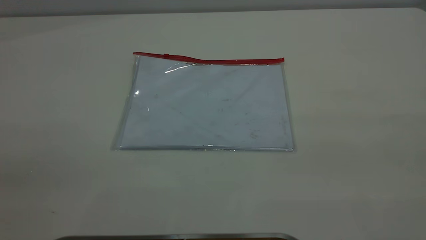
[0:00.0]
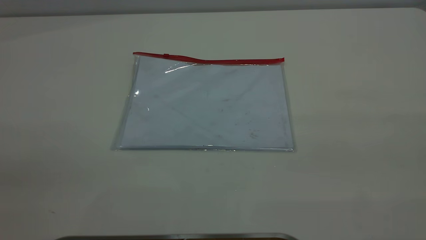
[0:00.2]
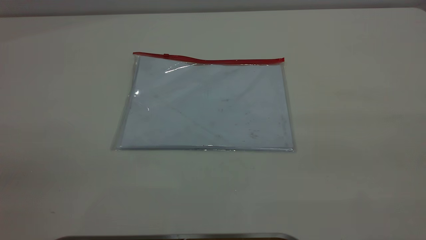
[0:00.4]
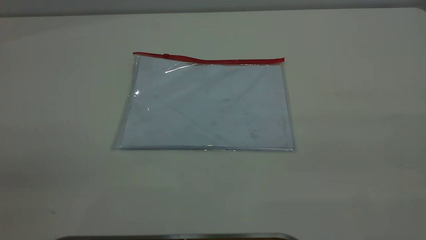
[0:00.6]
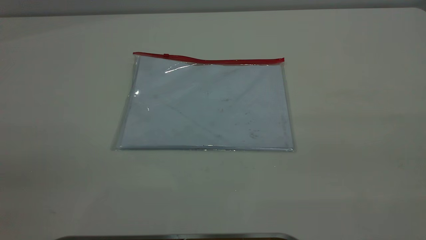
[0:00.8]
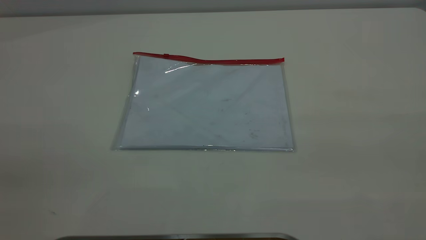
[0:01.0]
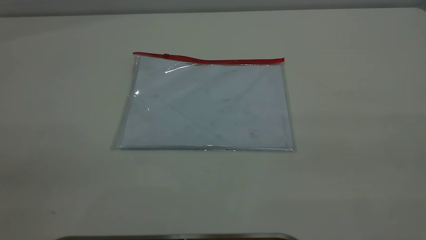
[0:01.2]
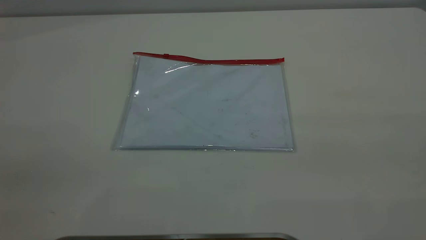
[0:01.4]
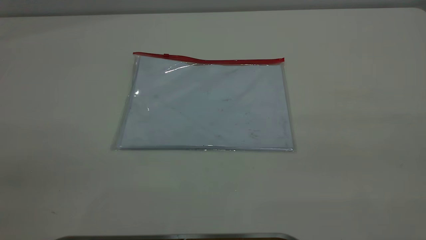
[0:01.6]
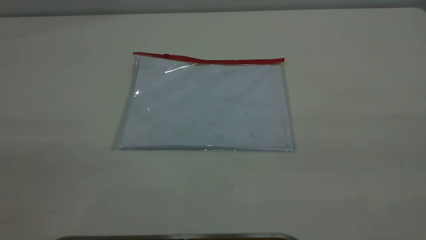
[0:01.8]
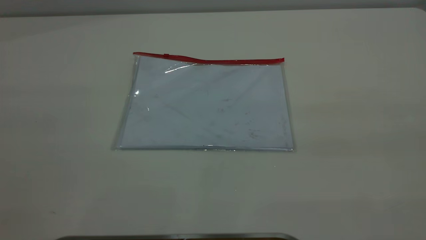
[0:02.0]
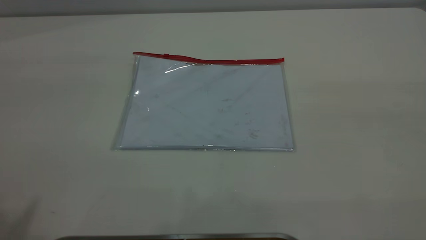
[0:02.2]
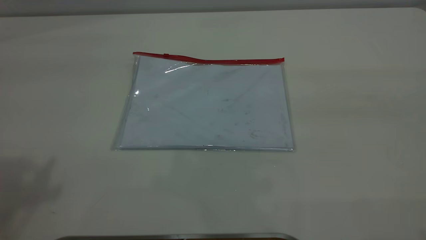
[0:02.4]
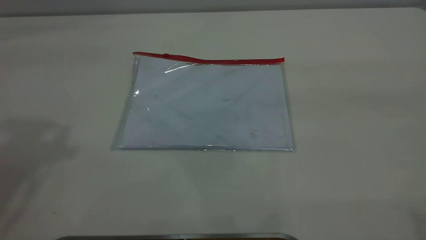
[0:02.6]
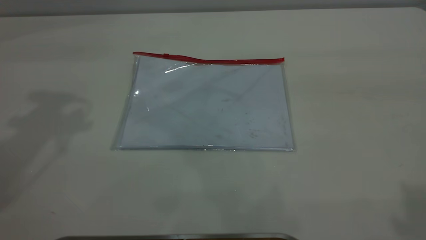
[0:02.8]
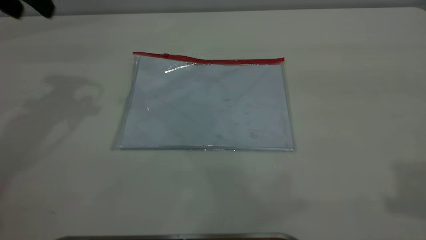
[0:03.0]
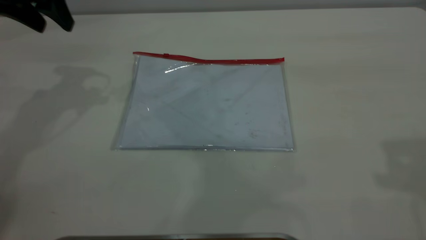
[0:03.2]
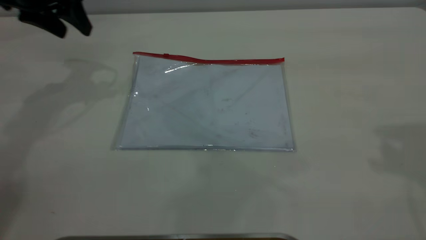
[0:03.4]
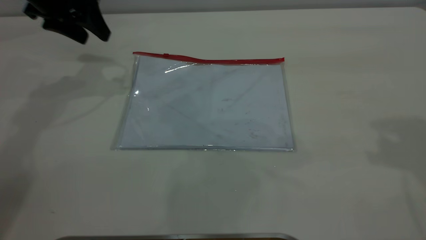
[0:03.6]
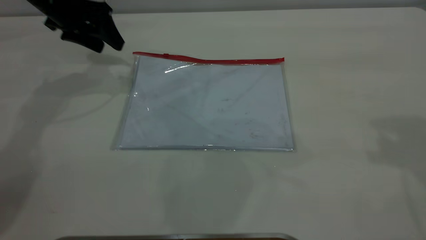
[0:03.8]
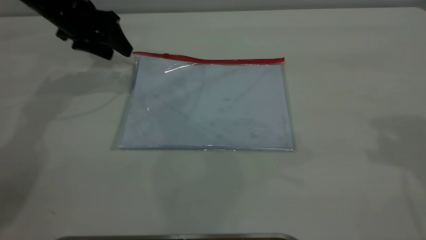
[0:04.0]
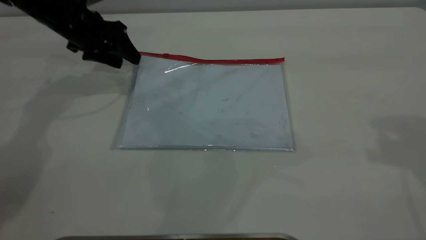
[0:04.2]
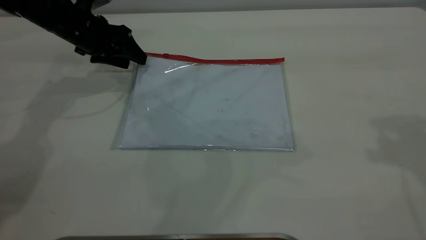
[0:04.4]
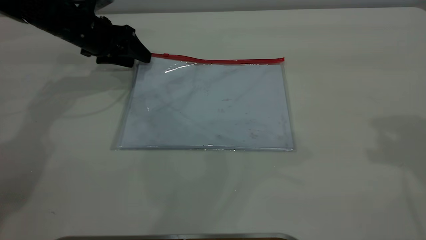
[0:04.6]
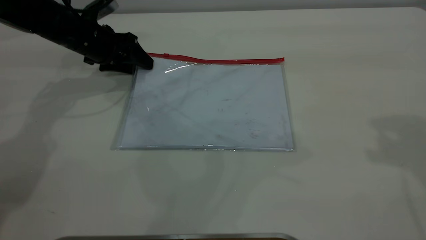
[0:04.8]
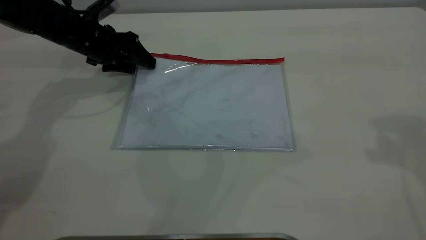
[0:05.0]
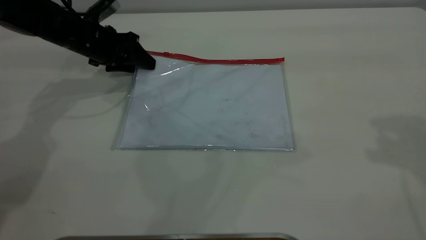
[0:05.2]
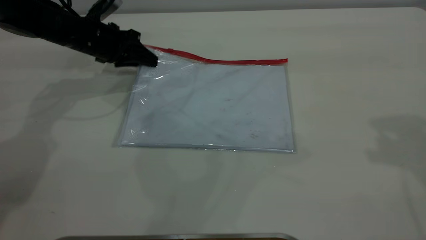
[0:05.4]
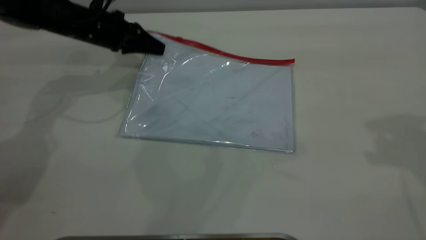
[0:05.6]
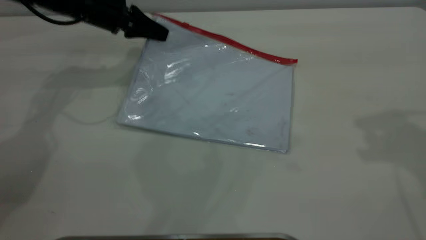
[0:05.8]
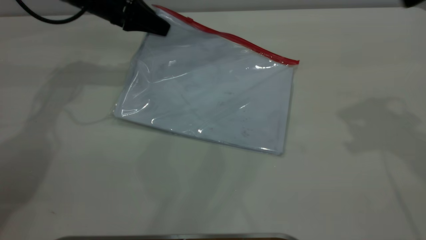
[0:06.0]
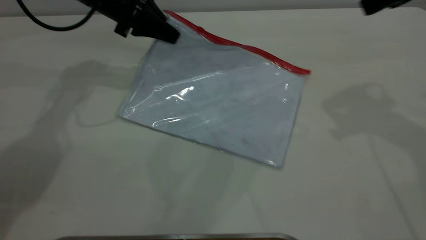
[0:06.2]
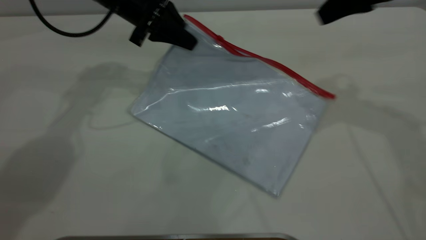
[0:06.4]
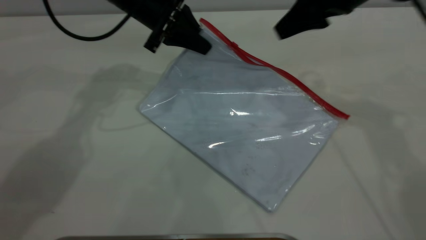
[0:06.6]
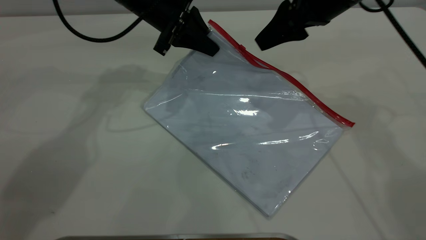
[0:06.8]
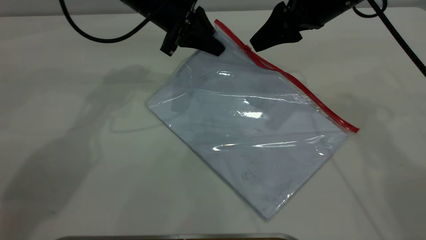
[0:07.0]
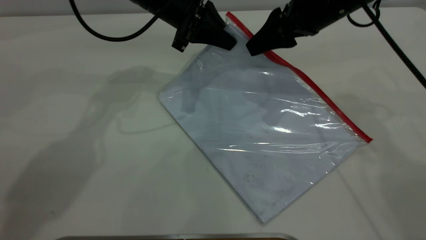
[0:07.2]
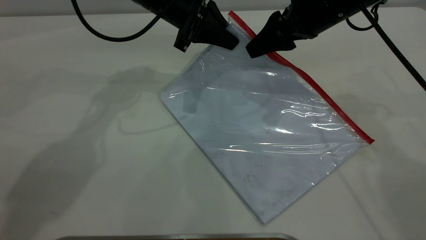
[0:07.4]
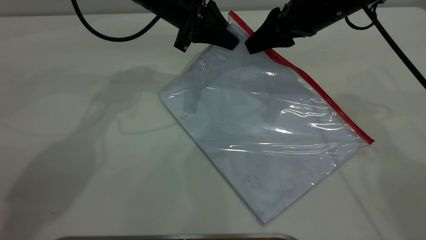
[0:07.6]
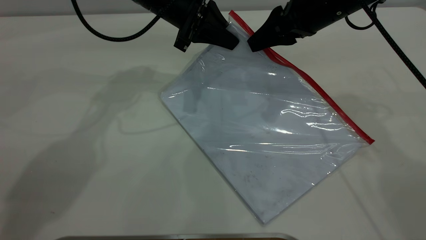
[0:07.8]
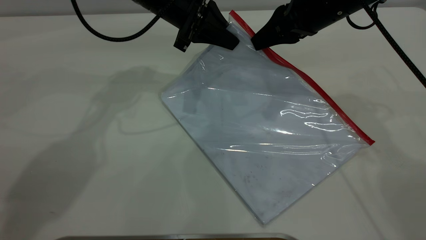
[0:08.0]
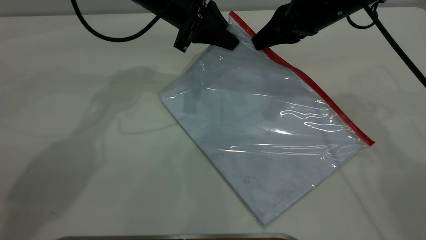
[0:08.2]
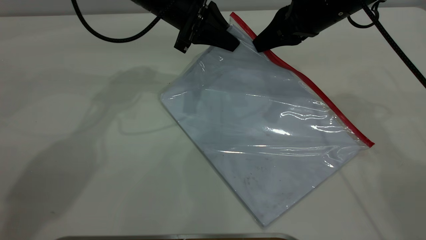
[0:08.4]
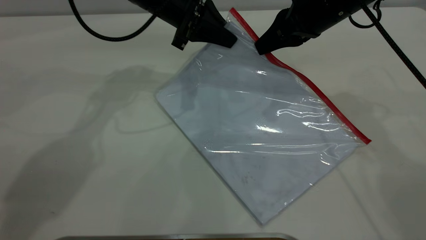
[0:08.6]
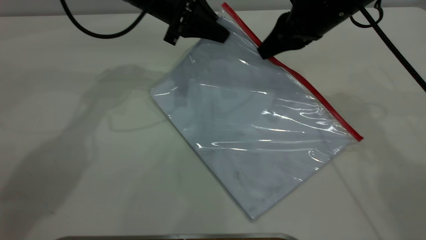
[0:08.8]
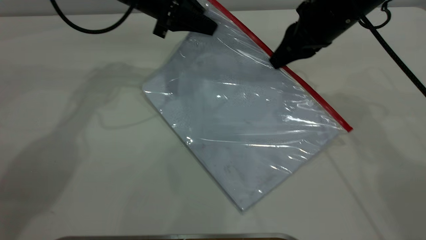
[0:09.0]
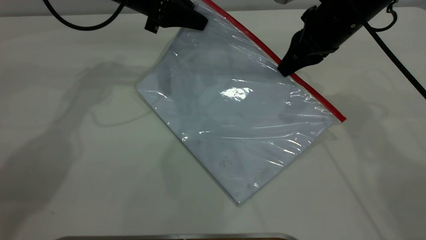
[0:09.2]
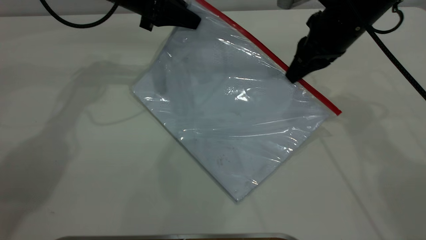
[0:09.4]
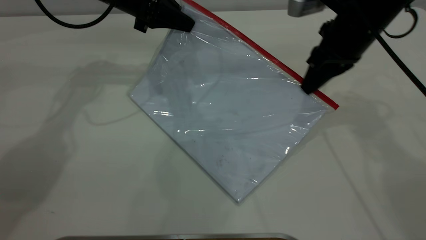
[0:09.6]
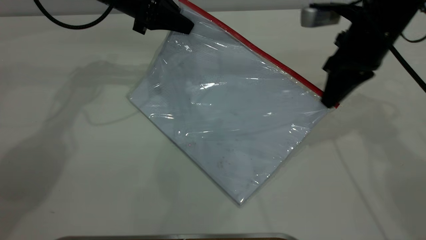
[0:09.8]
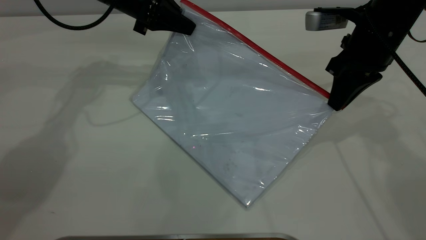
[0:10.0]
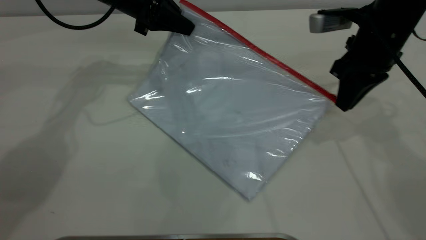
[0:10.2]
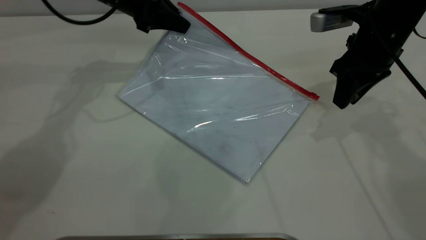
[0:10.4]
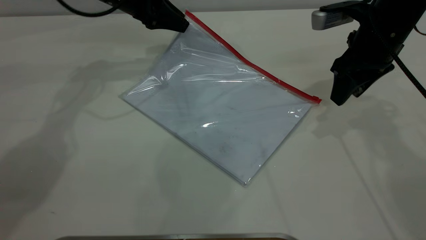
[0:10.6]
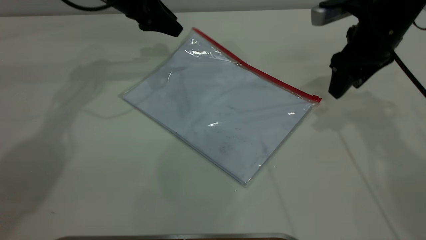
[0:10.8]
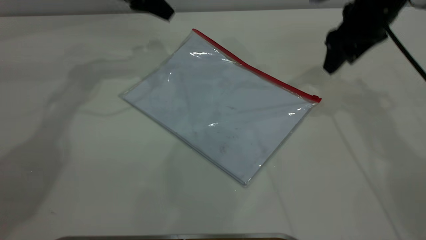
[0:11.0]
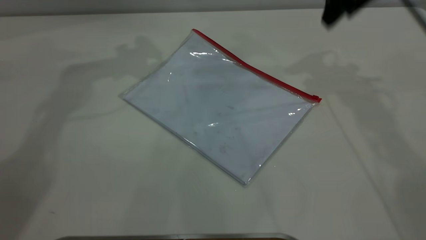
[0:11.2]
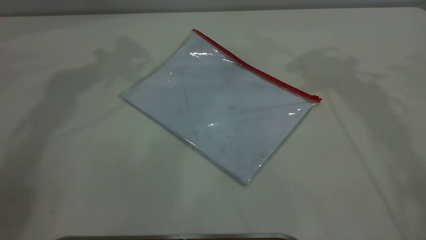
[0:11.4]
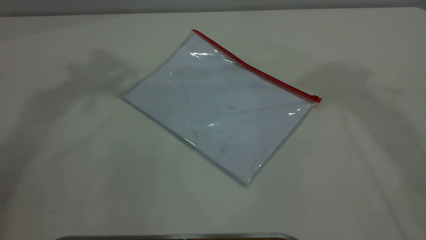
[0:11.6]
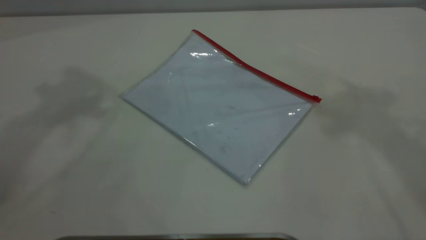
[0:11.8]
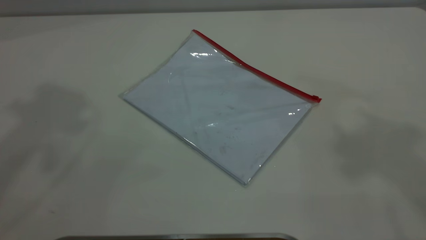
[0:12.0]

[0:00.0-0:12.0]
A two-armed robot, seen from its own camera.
Step, 0:00.0 to 0:05.6: Pick up the transparent plastic bag with the left gripper.
Step, 0:05.8 to 0:10.2: Pulling up the zipper on the transparent plastic bag with the right gripper to close it.
Step, 0:10.4 to 0:11.0: Place the transparent plastic bag.
0:00.0 to 0:01.6: The two grippers keep their place.
0:01.6 to 0:03.0: The left gripper goes about 40 cm forward.
0:03.0 to 0:04.4: The right gripper is displaced forward by approximately 10 cm. The left gripper shifts roughly 20 cm downward and forward.
0:04.4 to 0:06.0: The left gripper ends up some 5 cm from where it was, and closes its fingers. Meanwhile the right gripper is displaced forward and downward by some 10 cm.
0:06.0 to 0:07.6: The right gripper heads downward, to the left and forward, covering roughly 20 cm, while the left gripper travels to the right by approximately 10 cm.
0:07.6 to 0:09.0: The left gripper heads to the left, covering approximately 5 cm. The right gripper closes its fingers.
0:09.0 to 0:10.4: The right gripper changes place by roughly 5 cm, and opens.
0:10.4 to 0:12.0: The right gripper moves upward, some 40 cm, and opens up; the left gripper heads upward and backward, covering about 50 cm, and opens up.

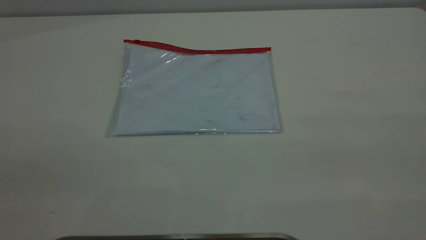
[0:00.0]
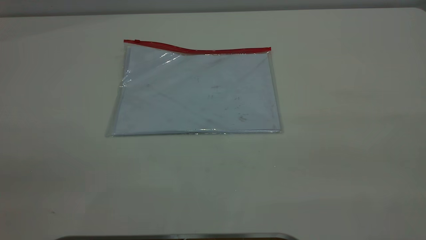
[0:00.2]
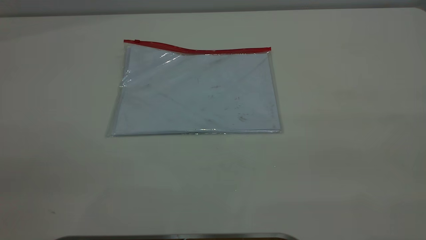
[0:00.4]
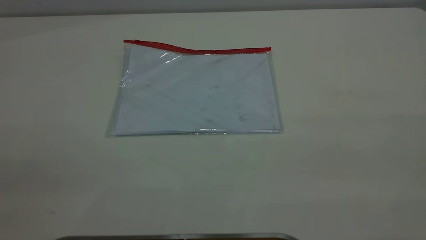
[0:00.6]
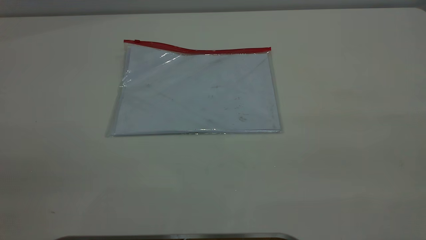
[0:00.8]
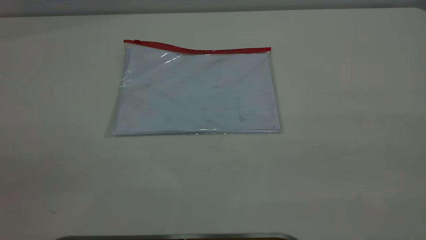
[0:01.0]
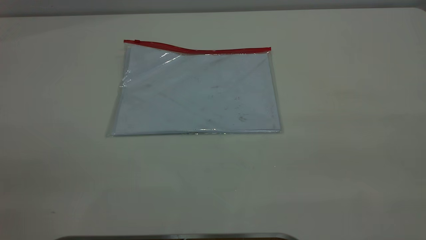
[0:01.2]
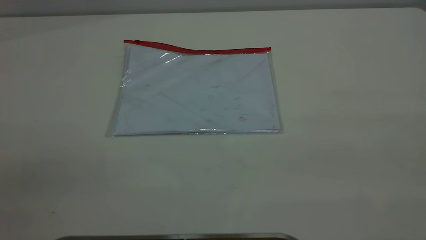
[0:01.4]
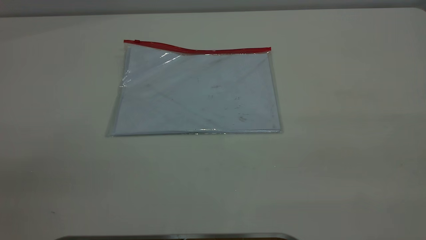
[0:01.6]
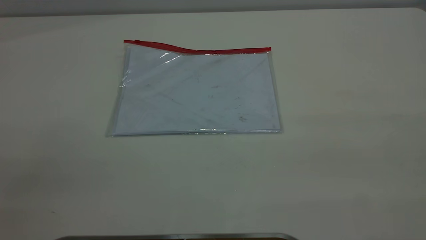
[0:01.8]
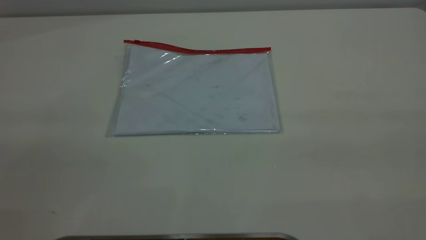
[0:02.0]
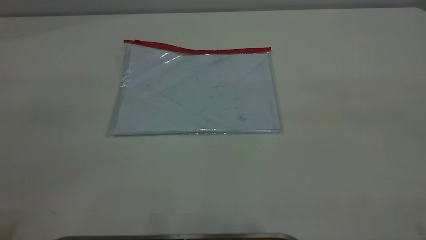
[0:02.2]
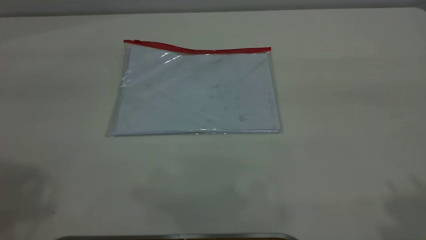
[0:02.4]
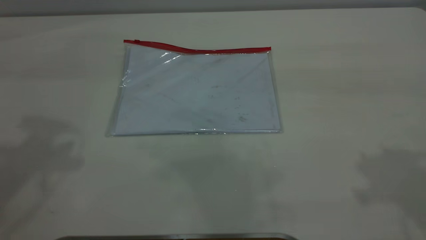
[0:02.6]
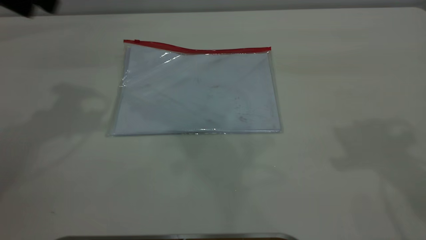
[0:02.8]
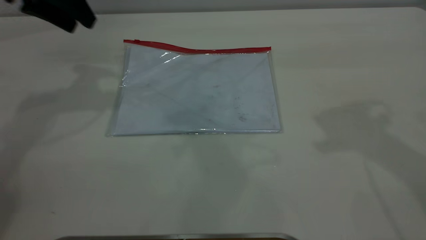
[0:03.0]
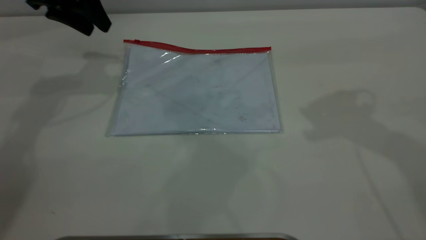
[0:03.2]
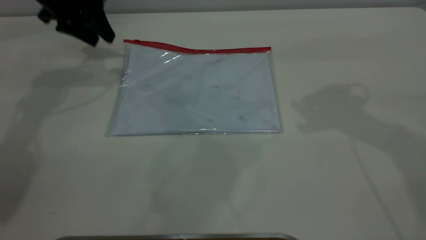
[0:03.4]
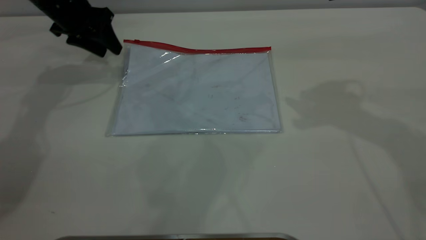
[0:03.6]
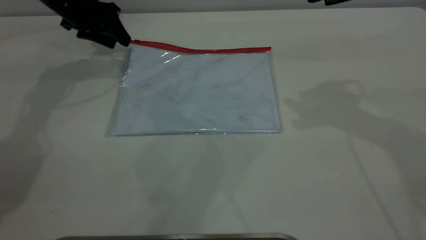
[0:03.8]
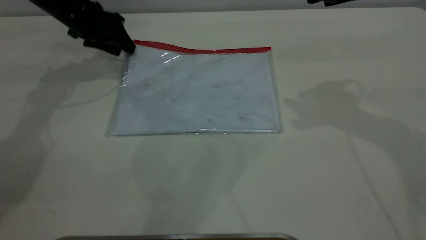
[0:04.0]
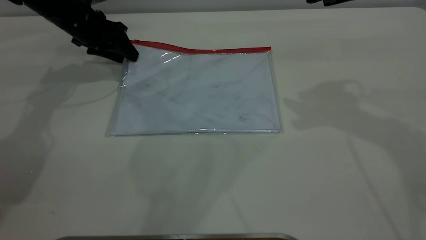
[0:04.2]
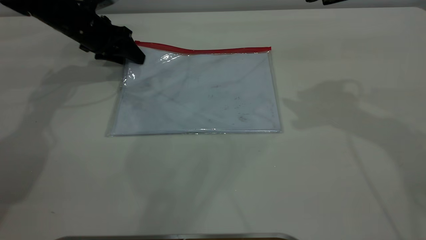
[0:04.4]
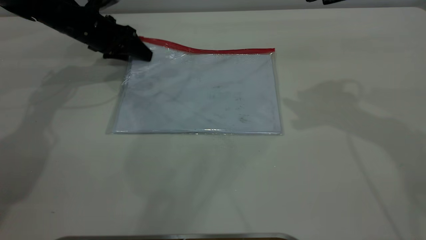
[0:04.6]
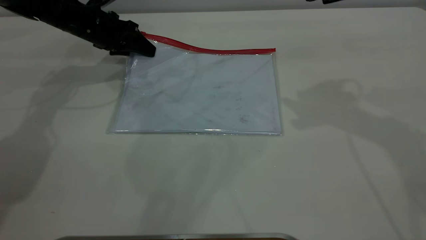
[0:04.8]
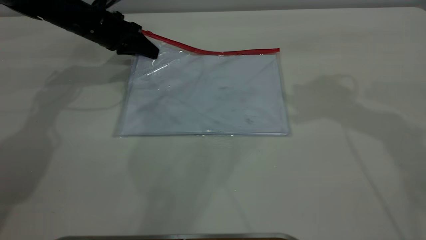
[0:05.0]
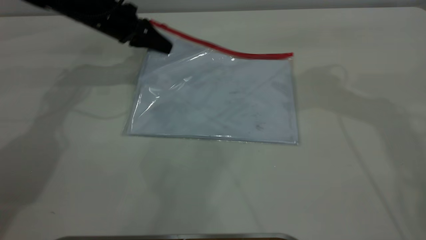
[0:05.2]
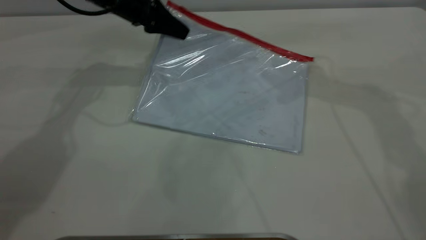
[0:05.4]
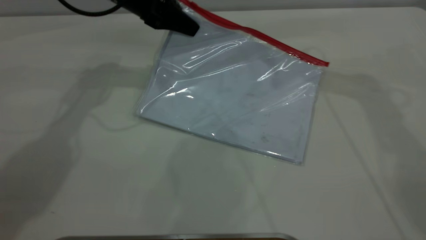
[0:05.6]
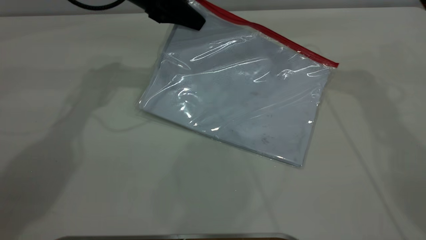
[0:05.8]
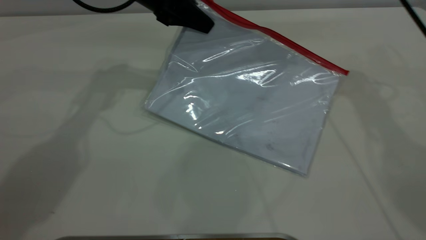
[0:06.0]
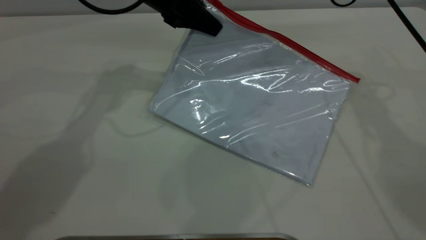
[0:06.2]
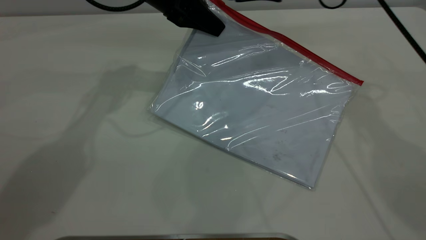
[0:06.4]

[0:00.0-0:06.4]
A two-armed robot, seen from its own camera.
Step, 0:00.0 to 0:05.2: Pick up the transparent plastic bag with the left gripper.
0:00.0 to 0:01.6: The two grippers keep their place.
0:01.6 to 0:03.2: The left gripper shifts some 50 cm forward.
0:03.2 to 0:04.8: The left gripper goes some 10 cm downward, and closes its fingers.
0:04.8 to 0:06.4: The right gripper goes roughly 15 cm forward, to the left and downward; the left gripper travels to the right and upward by roughly 15 cm, and closes up.
